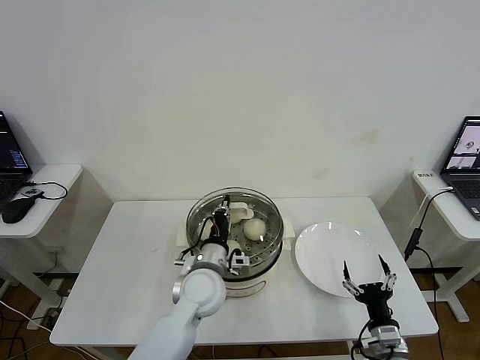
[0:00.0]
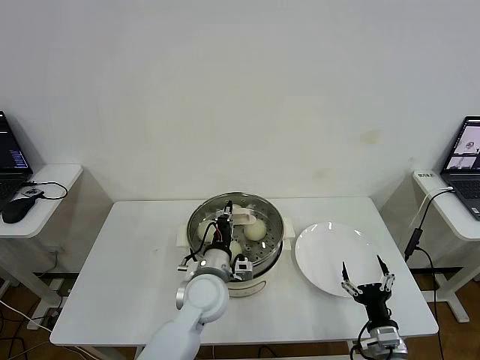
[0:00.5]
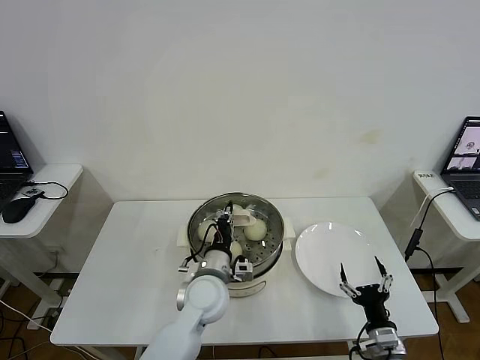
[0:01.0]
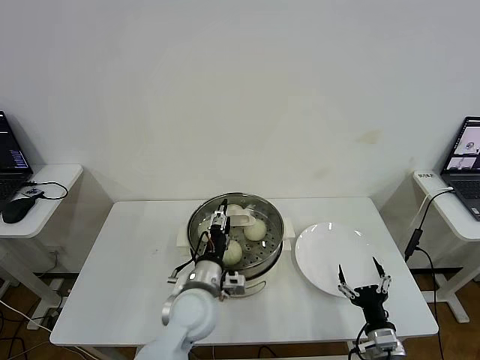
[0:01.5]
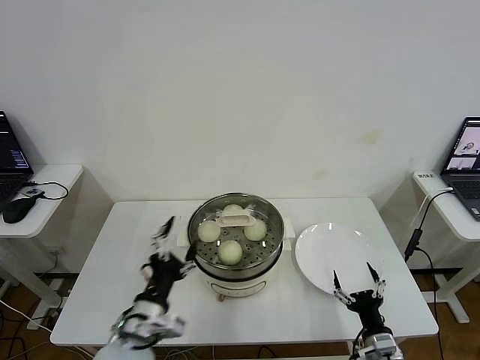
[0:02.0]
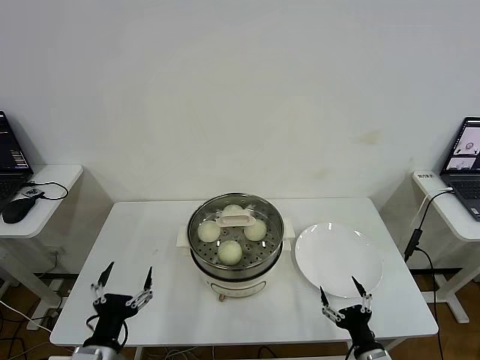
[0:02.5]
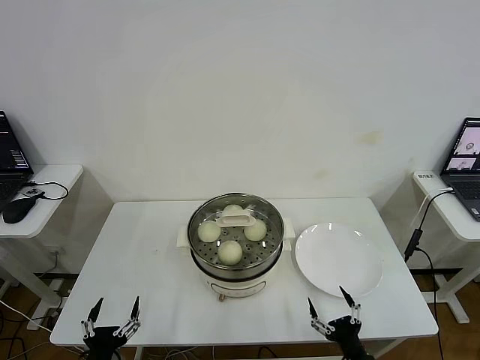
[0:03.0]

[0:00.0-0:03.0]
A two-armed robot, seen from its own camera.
0:00.0 to 0:01.5: The left gripper opens.
0:01.5 to 0:03.0: The left gripper heads to the left and backward, covering some 30 cm. The right gripper travels backward by roughly 5 cm.

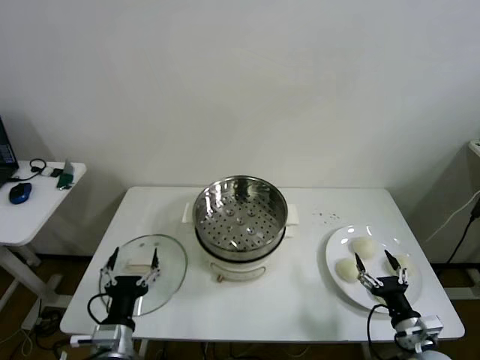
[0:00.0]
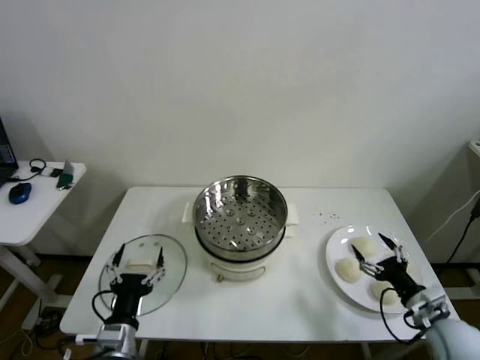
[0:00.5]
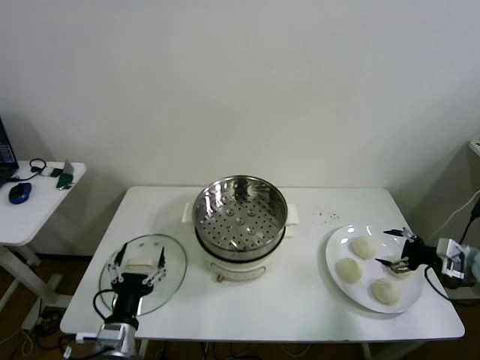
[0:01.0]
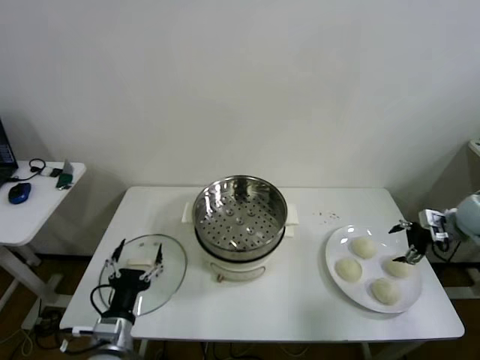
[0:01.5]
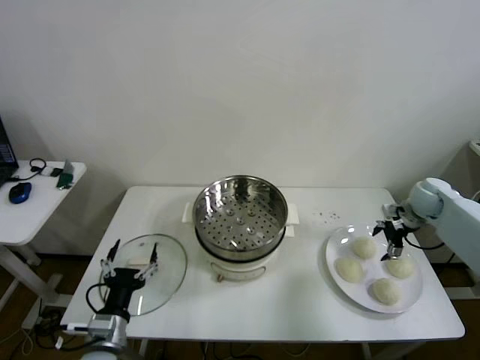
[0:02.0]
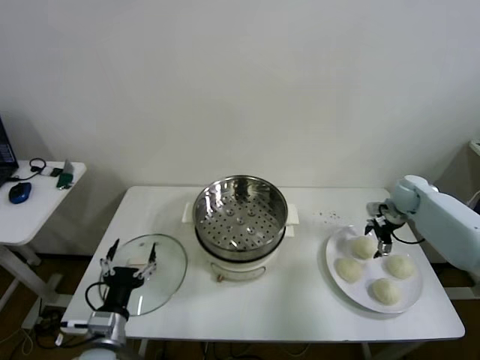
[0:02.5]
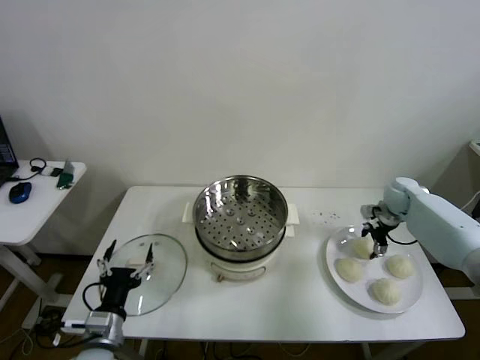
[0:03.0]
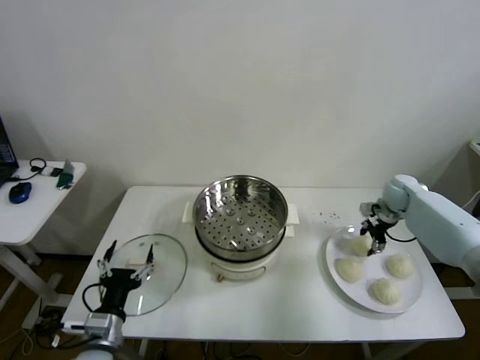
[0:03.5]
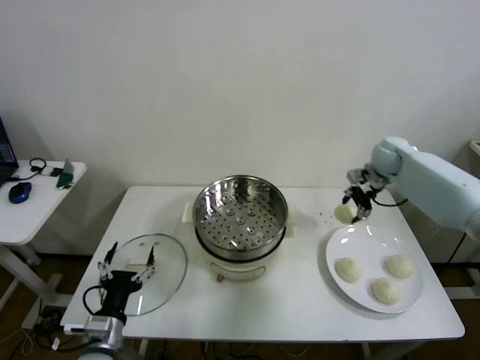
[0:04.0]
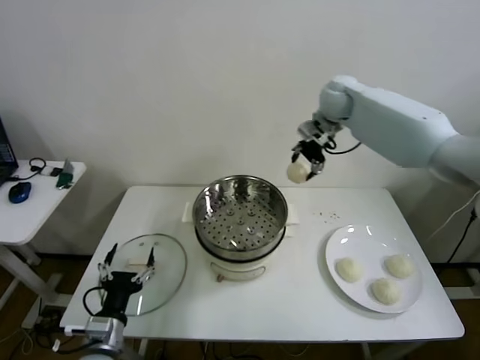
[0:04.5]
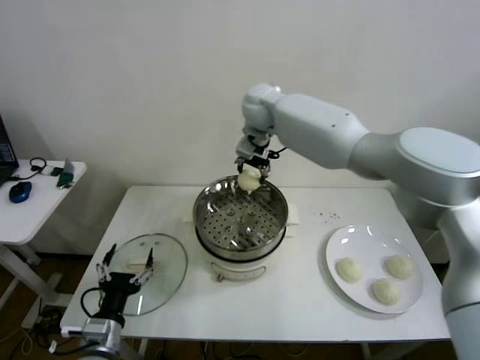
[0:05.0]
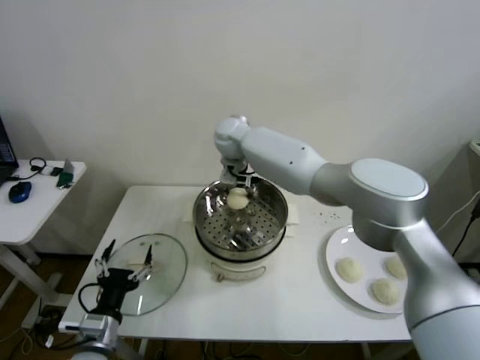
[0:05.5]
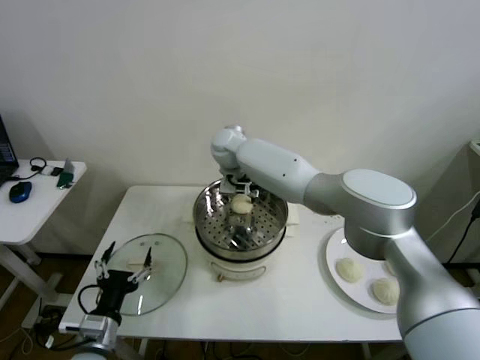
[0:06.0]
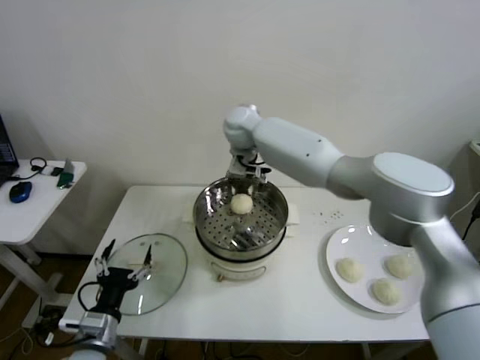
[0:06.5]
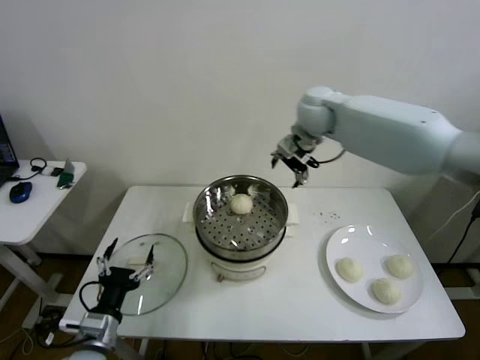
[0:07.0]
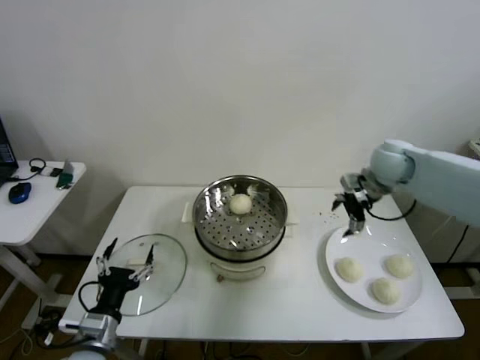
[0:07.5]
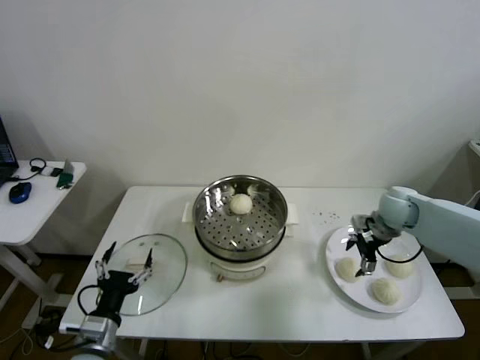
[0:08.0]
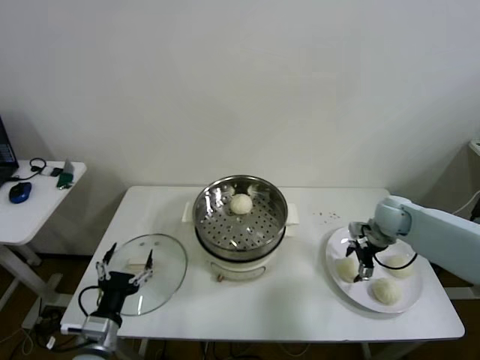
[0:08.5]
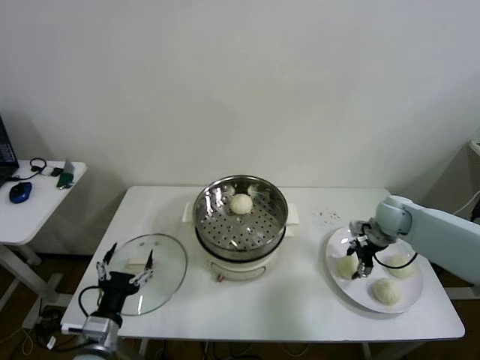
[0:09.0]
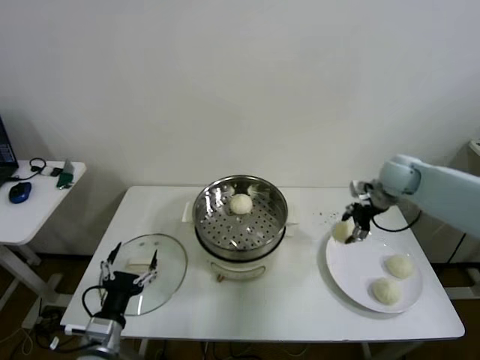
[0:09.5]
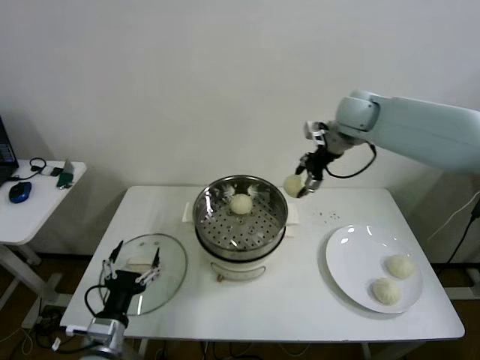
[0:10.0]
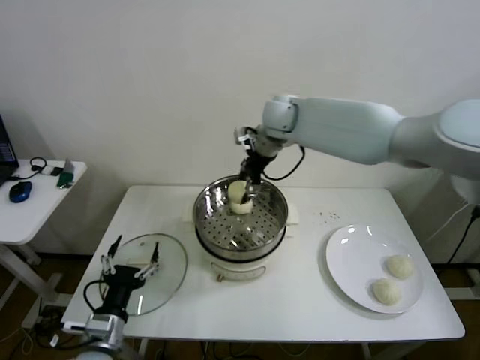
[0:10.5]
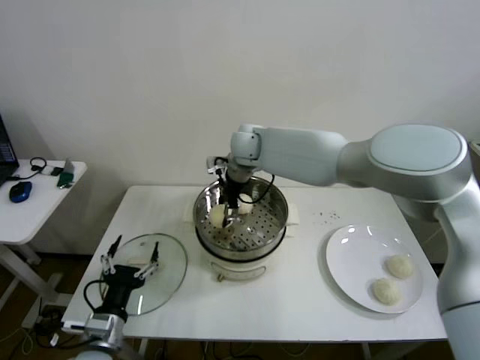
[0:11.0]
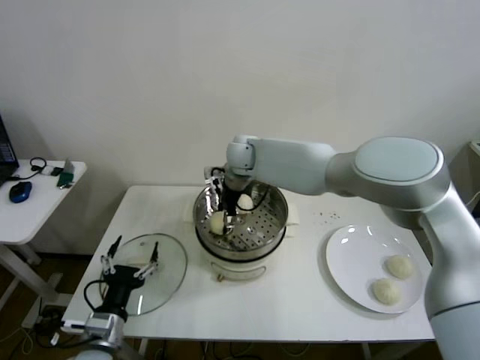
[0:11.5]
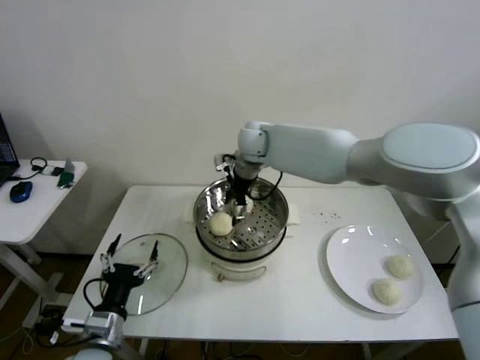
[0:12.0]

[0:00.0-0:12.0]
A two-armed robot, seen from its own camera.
Step, 0:00.0 to 0:03.0: Grasp the baozi in the plate with right gripper.
Step, 0:03.5 to 0:06.0: Place the baozi on the steamer with right gripper.
Step, 0:06.5 to 0:08.5: Grasp the baozi in the plate with right gripper.
Step, 0:09.0 to 0:11.5: Place the baozi on the steamer with right gripper.
0:02.0 to 0:04.0: The right gripper heads upward, to the left and forward, covering about 20 cm, and closes.
0:04.0 to 0:06.0: The right gripper shifts about 40 cm to the left, and opens up.
0:06.0 to 0:08.0: The right gripper moves to the right, about 40 cm.
0:08.0 to 0:10.0: The right gripper goes roughly 30 cm upward, to the left and forward, and closes its fingers.
0:10.0 to 0:12.0: The right gripper is displaced to the left by approximately 20 cm, and opens its fingers.

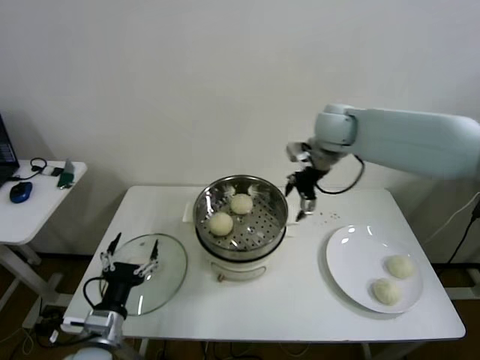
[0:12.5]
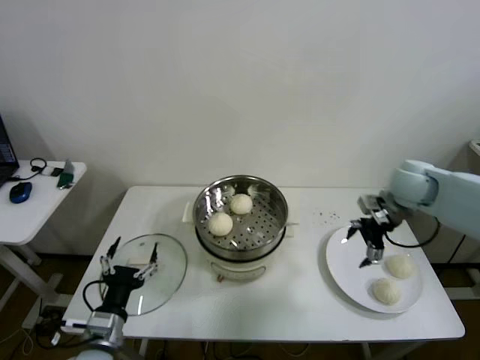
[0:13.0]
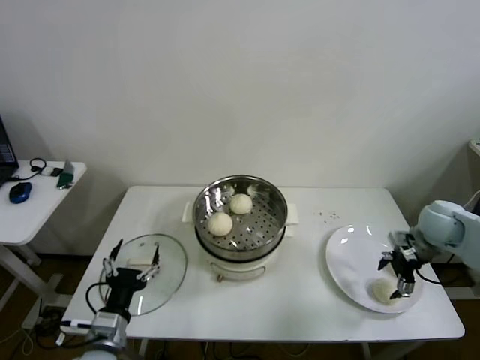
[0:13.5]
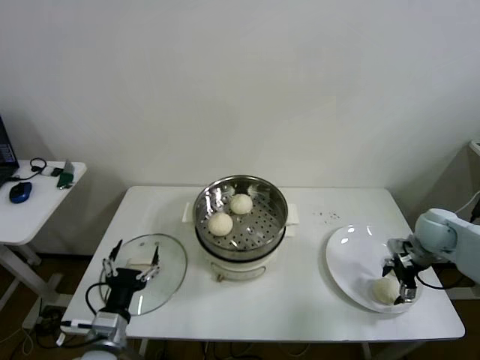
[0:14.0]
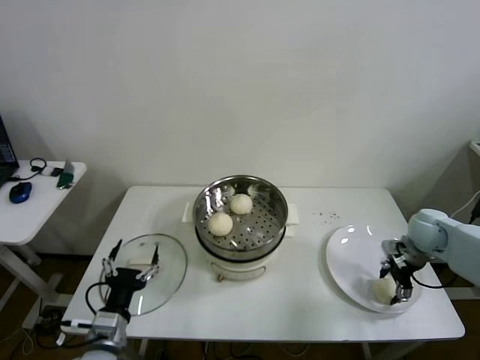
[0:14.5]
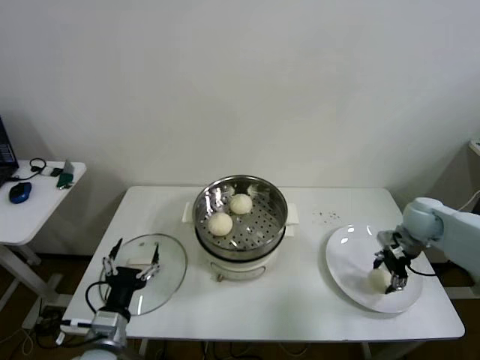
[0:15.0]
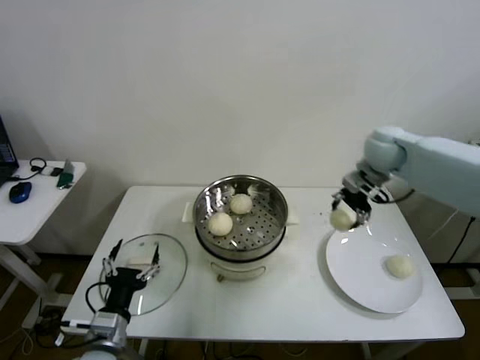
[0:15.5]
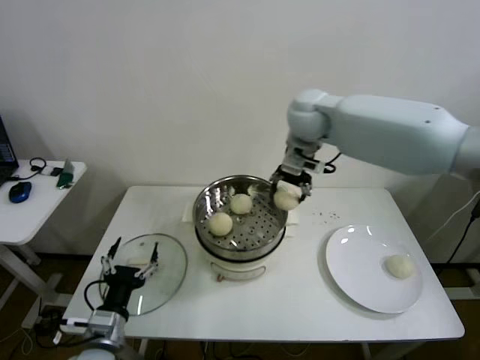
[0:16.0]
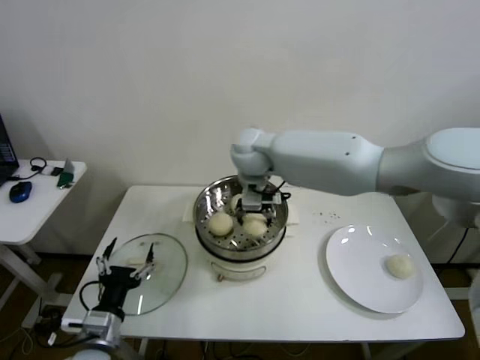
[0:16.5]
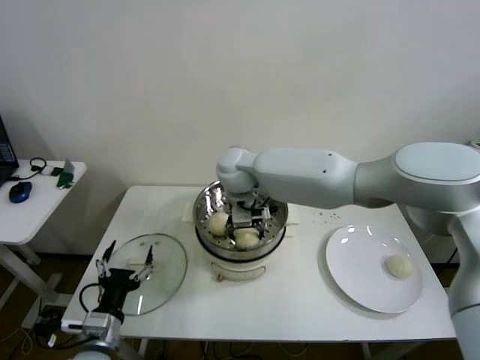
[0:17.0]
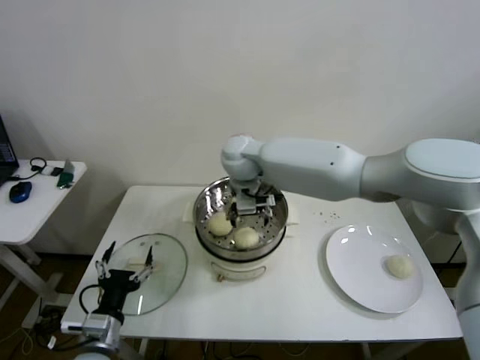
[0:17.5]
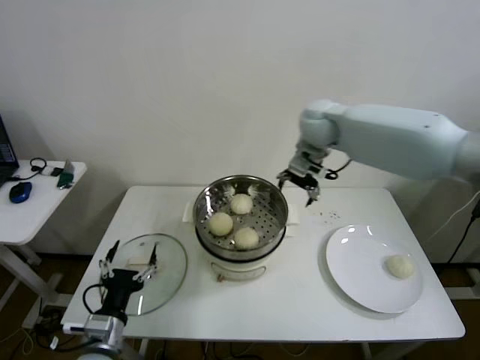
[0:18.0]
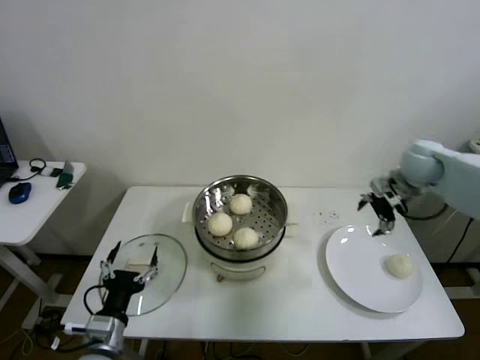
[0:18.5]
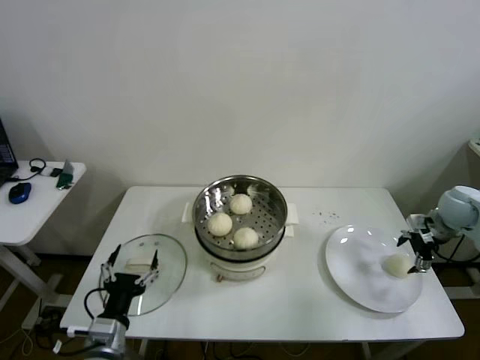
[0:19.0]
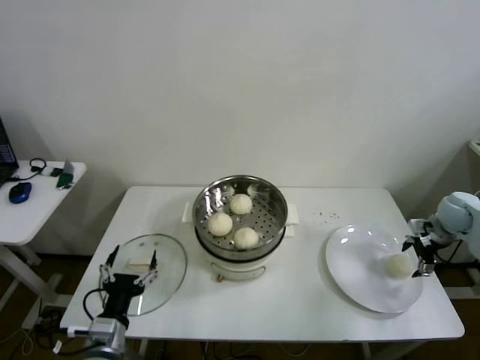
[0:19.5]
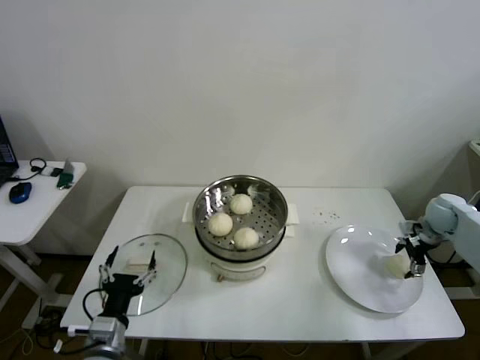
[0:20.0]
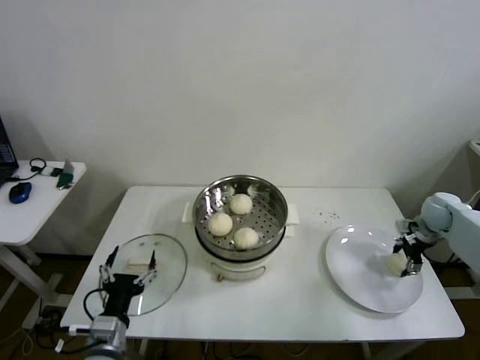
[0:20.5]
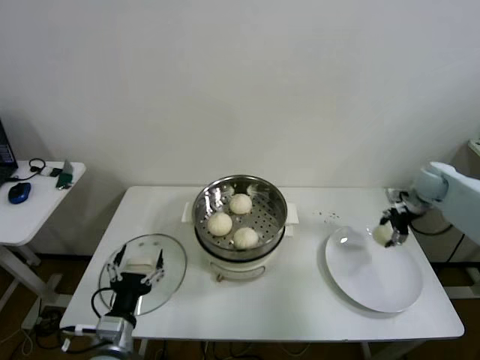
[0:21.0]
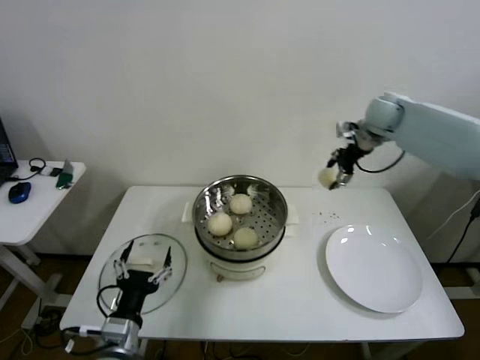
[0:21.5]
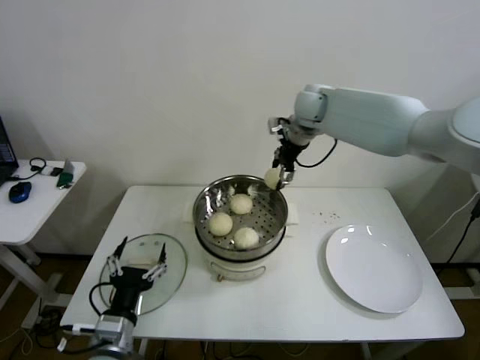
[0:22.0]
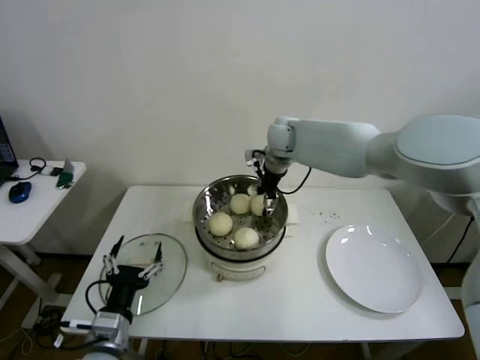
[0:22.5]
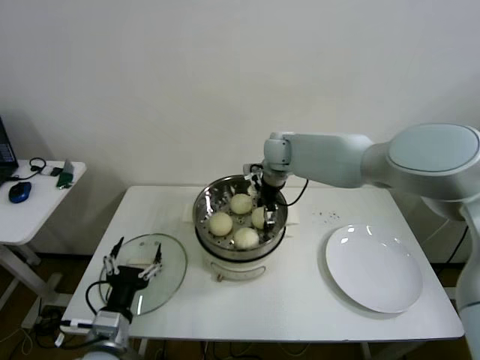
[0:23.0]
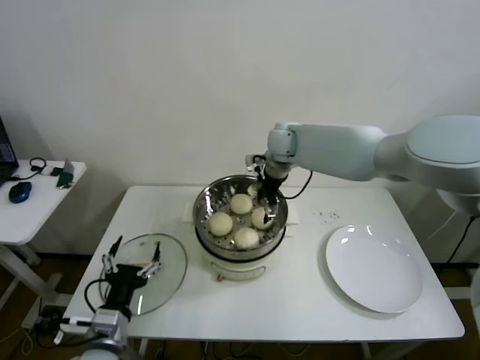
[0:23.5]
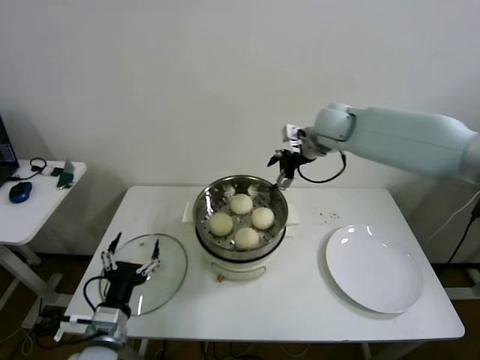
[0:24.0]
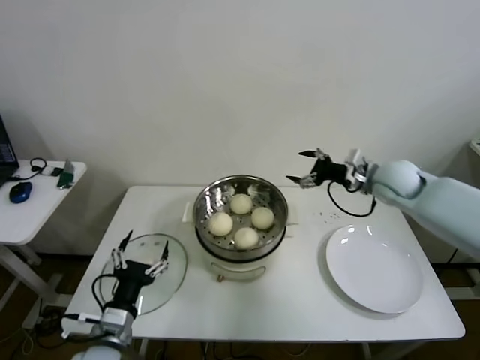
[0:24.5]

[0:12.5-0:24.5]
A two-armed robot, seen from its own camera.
Step, 0:12.5 to 0:14.5: Grasp the baozi in the plate with right gripper.
Step, 0:15.0 to 0:17.0: Place the baozi on the steamer with right gripper.
Step, 0:17.5 to 0:20.0: Grasp the baozi in the plate with right gripper.
Step, 0:20.5 to 0:23.0: Place the baozi on the steamer with right gripper.
0:12.5 to 0:14.5: The right gripper travels to the right, downward and backward by roughly 35 cm, and closes.
0:14.5 to 0:16.5: The right gripper travels to the left and upward by some 50 cm.
0:16.5 to 0:18.5: The right gripper travels to the right by some 40 cm, and opens.
0:18.5 to 0:20.5: The right gripper moves downward and to the right, roughly 20 cm, and closes its fingers.
0:20.5 to 0:22.5: The right gripper is displaced to the left by some 40 cm.
0:22.5 to 0:24.5: The right gripper shifts roughly 25 cm to the right and backward, and opens.
